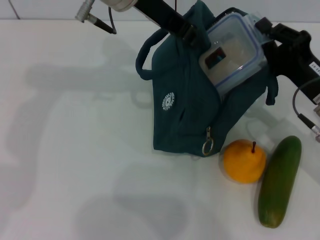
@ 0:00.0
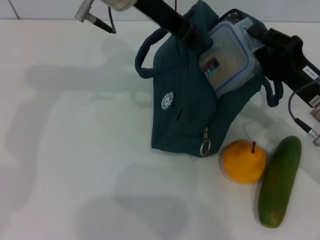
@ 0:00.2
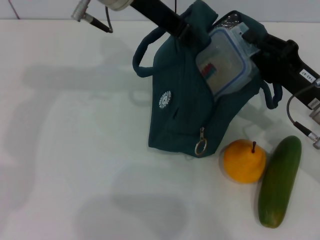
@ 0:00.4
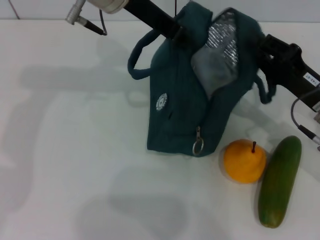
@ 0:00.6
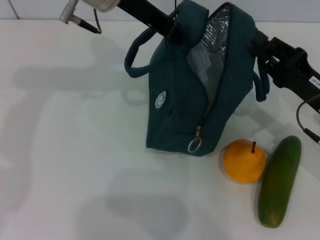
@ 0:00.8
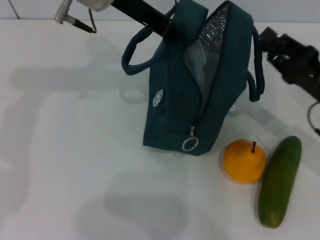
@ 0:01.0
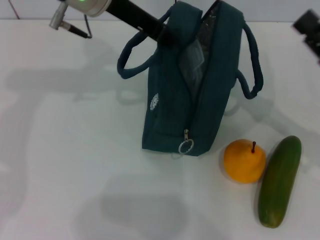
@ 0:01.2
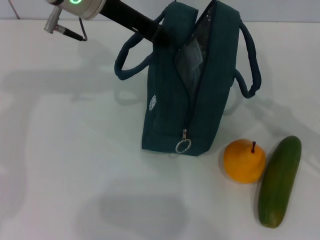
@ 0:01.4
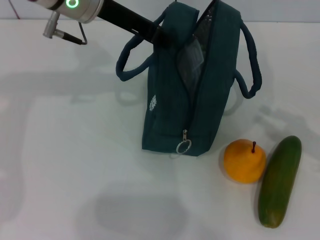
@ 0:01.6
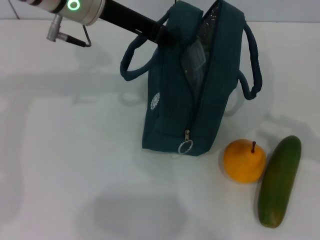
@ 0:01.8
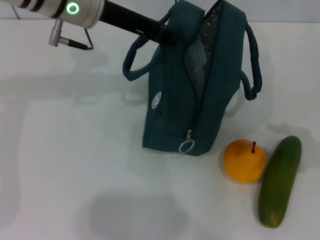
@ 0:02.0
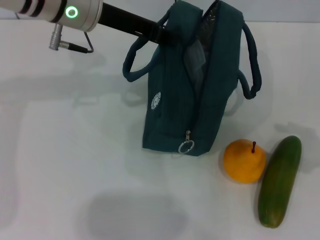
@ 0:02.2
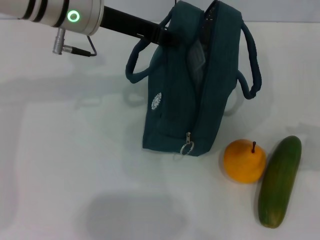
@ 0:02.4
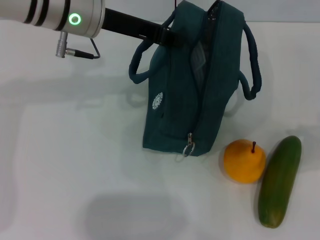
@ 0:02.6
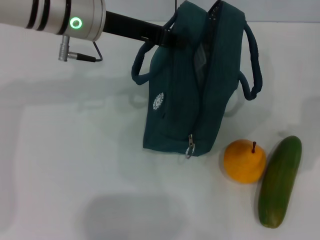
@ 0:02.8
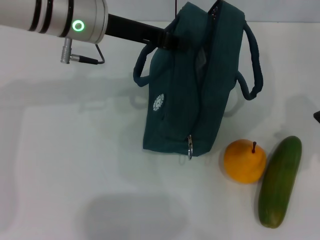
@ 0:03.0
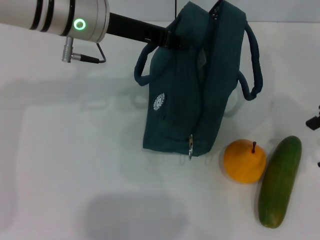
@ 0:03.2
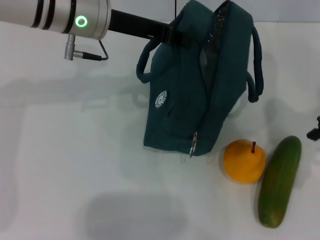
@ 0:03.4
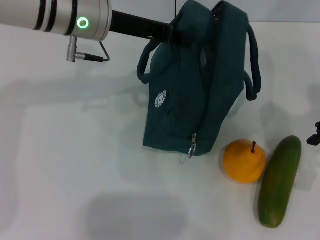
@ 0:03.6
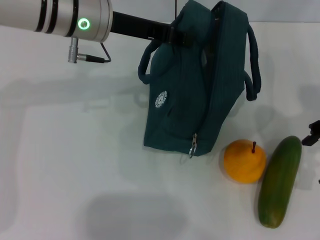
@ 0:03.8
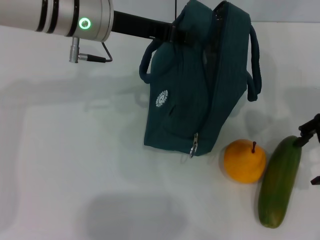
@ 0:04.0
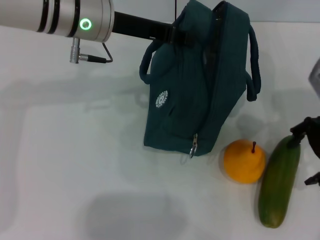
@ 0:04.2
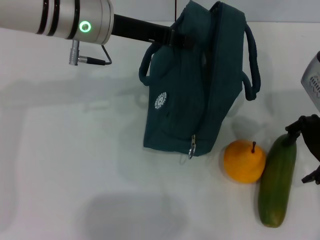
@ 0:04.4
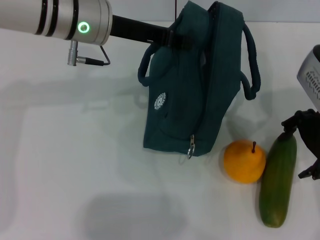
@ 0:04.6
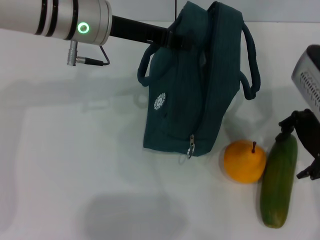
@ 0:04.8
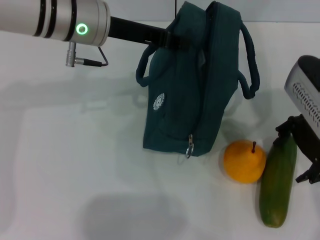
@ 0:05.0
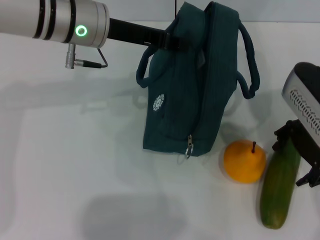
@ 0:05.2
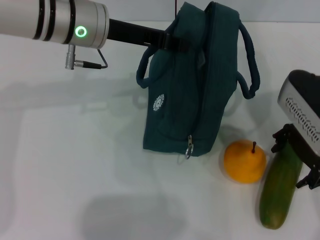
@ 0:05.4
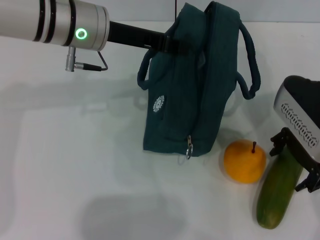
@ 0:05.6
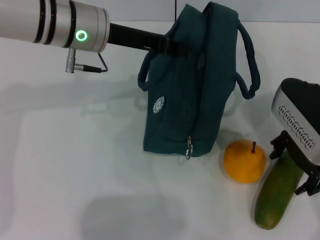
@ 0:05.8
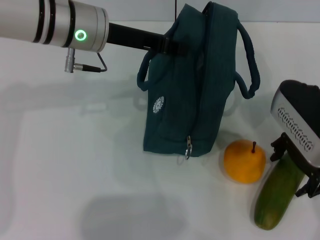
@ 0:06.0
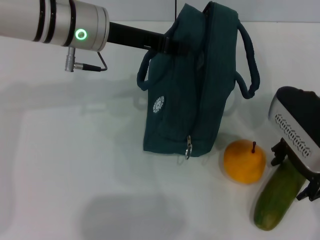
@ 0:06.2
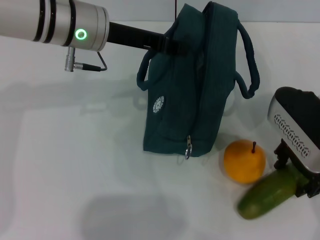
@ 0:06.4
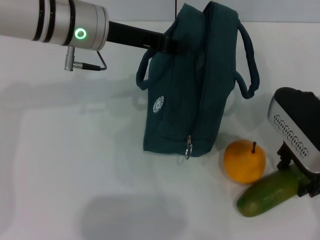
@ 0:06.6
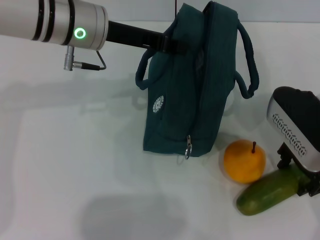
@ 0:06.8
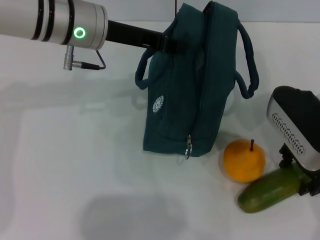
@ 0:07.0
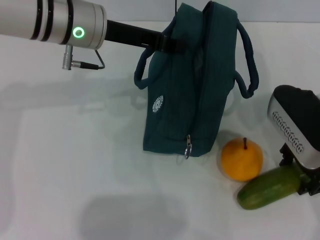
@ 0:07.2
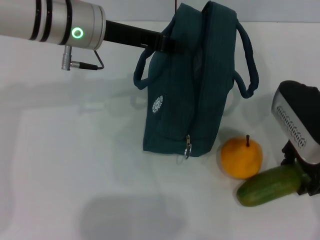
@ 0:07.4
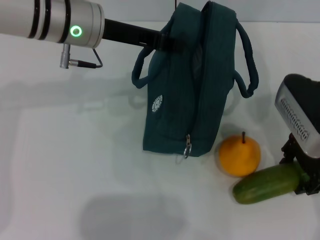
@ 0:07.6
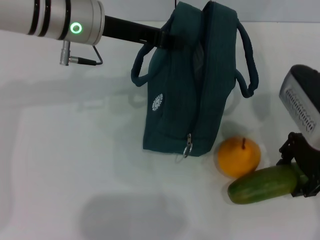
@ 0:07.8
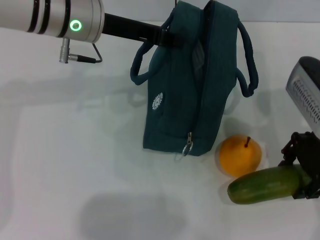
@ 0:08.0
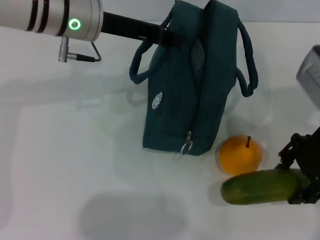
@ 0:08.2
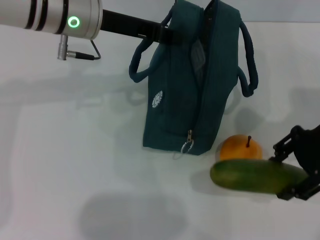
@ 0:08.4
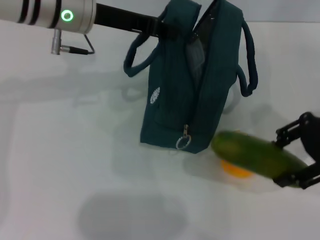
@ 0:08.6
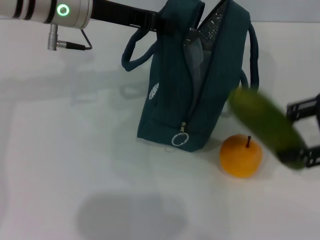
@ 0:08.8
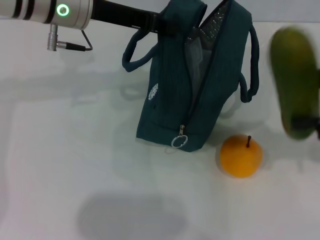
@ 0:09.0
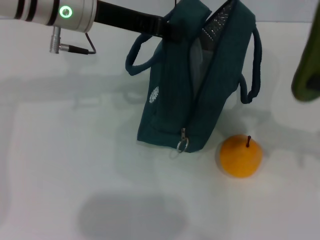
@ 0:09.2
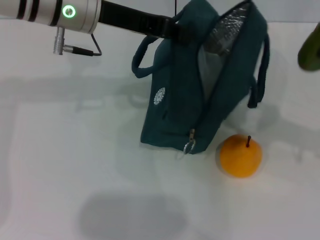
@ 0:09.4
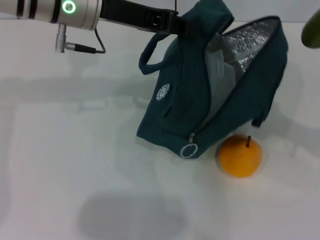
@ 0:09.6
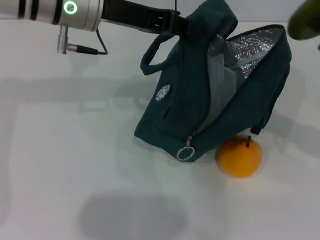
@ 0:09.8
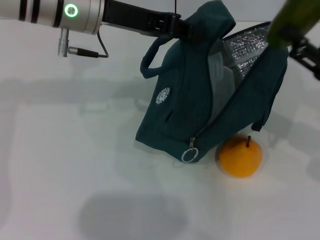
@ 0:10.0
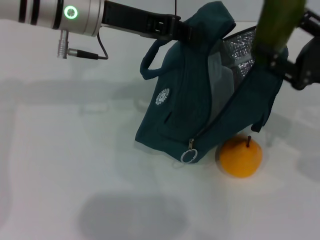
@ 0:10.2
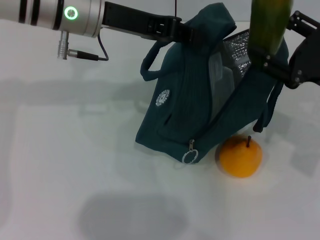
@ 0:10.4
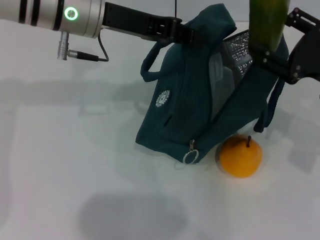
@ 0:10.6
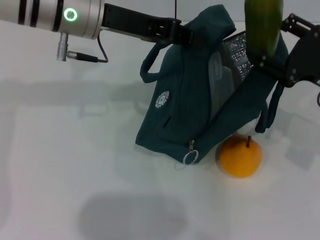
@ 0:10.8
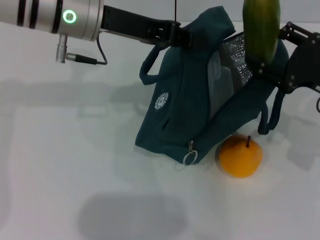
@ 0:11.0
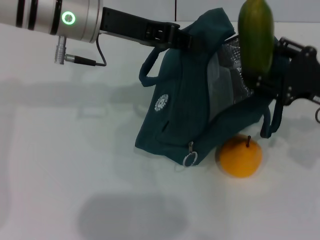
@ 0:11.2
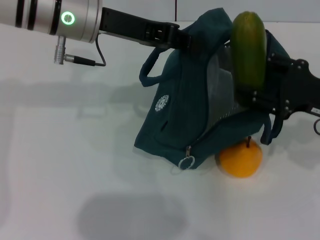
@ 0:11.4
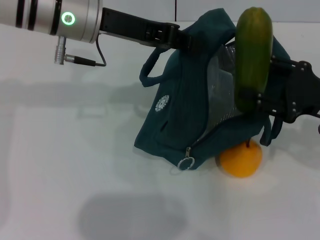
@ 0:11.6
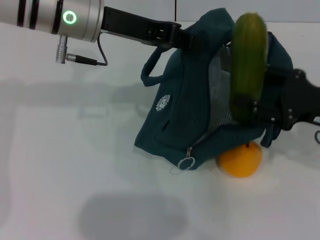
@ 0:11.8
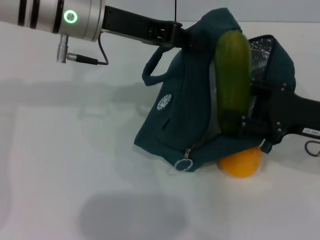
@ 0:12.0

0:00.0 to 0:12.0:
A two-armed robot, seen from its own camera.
Step, 0:01.0 to 0:07.2: Pick up the cucumber with your right hand.
0:00.0 to 0:01.6: The right gripper moves to the right and backward, approximately 15 cm; the left gripper heads to the left, covering roughly 5 cm.
0:01.6 to 0:03.0: The right gripper is displaced upward and forward by some 15 cm, and opens.
0:03.0 to 0:04.4: The right gripper is displaced to the left by roughly 10 cm.
0:04.4 to 0:07.6: The grippers stay close to where they were, moving slightly.
0:07.6 to 0:09.0: The right gripper moves to the right, roughly 10 cm.
0:09.0 to 0:10.4: The right gripper moves downward, roughly 10 cm.

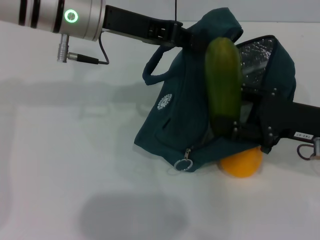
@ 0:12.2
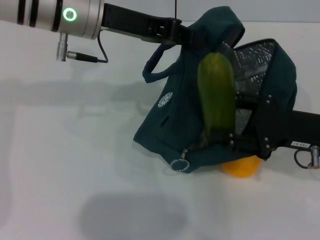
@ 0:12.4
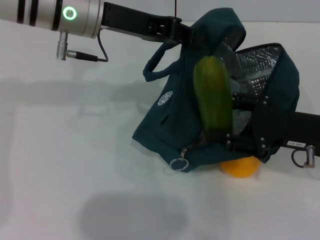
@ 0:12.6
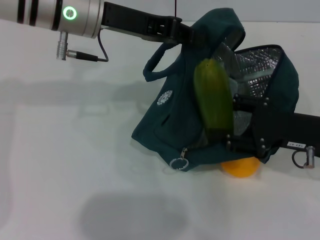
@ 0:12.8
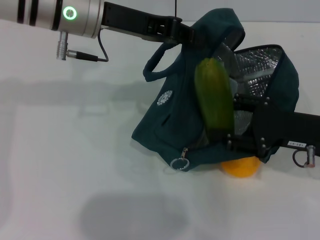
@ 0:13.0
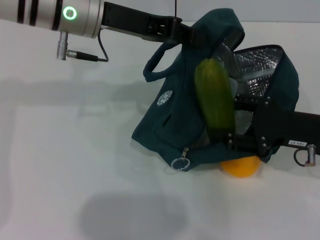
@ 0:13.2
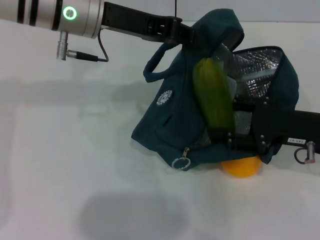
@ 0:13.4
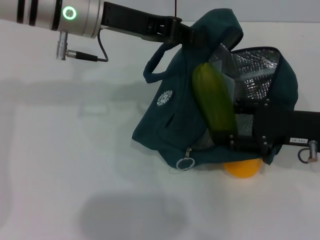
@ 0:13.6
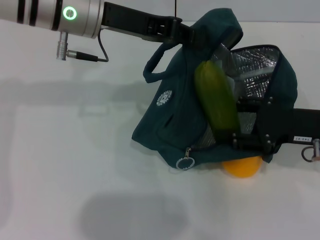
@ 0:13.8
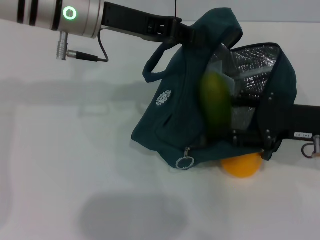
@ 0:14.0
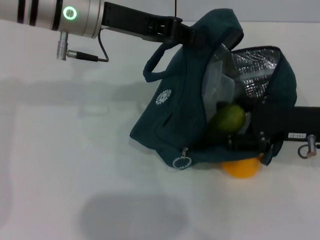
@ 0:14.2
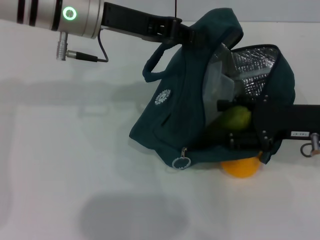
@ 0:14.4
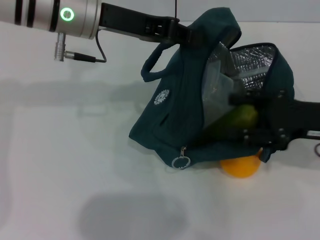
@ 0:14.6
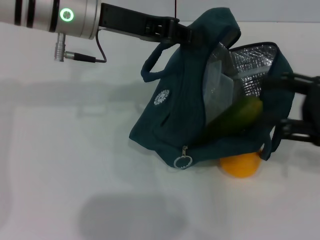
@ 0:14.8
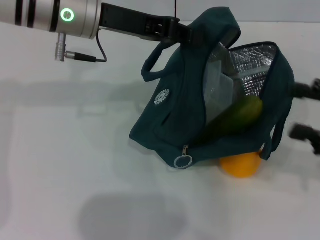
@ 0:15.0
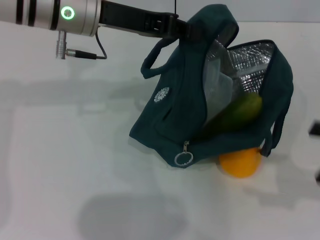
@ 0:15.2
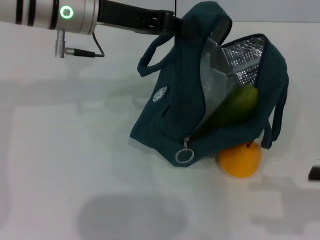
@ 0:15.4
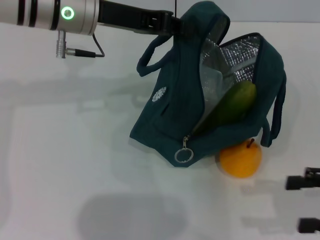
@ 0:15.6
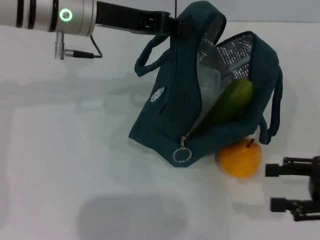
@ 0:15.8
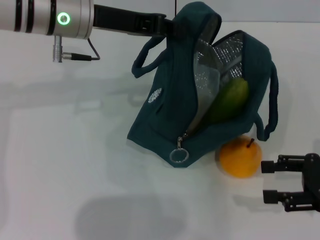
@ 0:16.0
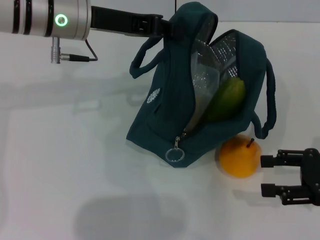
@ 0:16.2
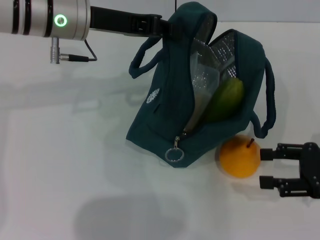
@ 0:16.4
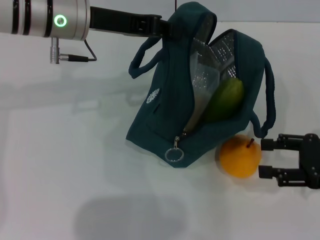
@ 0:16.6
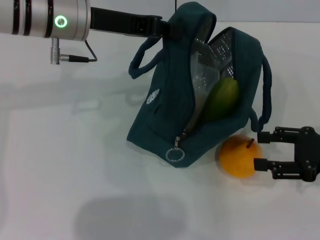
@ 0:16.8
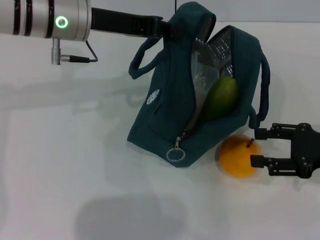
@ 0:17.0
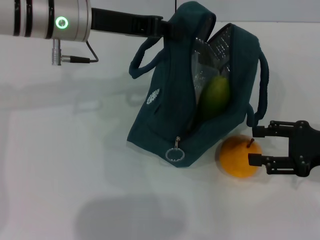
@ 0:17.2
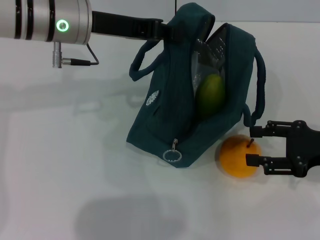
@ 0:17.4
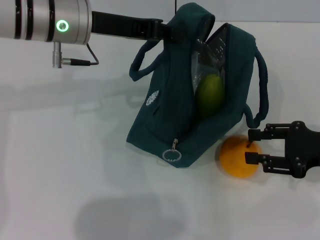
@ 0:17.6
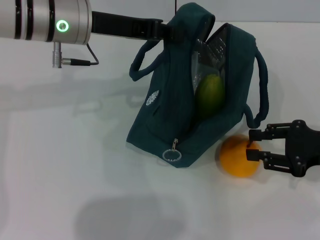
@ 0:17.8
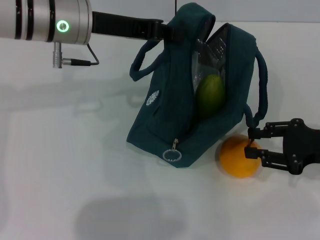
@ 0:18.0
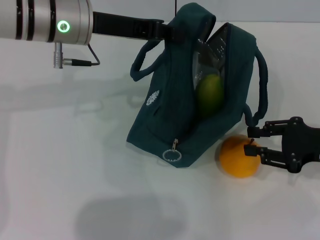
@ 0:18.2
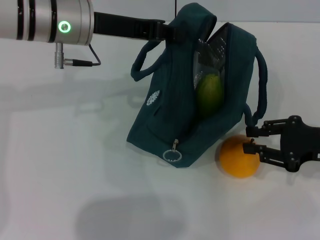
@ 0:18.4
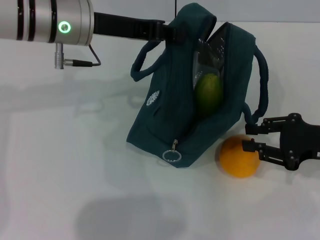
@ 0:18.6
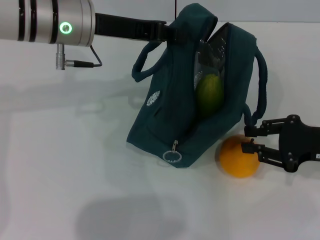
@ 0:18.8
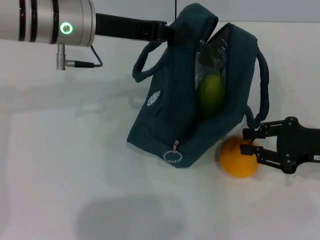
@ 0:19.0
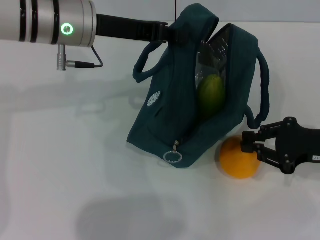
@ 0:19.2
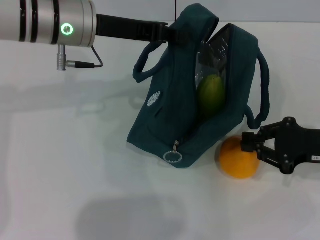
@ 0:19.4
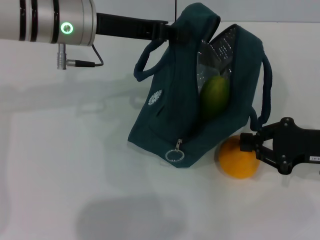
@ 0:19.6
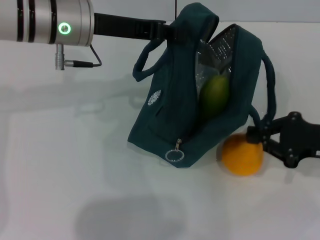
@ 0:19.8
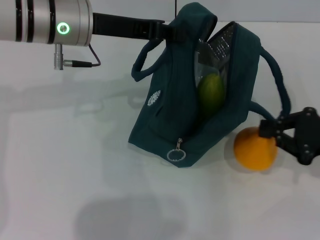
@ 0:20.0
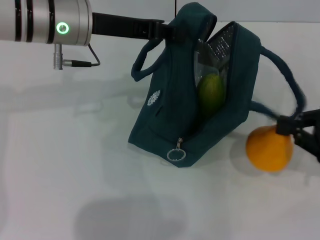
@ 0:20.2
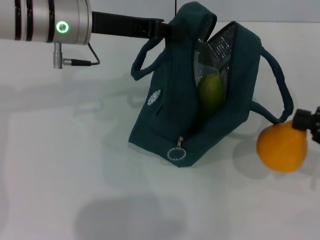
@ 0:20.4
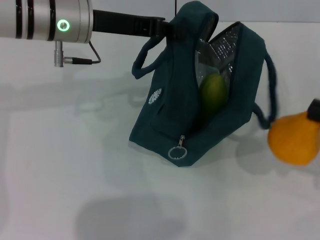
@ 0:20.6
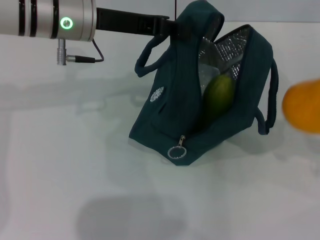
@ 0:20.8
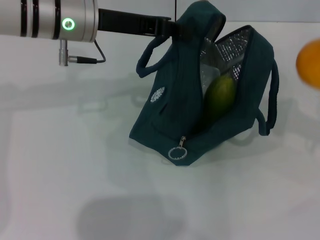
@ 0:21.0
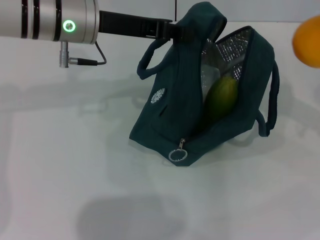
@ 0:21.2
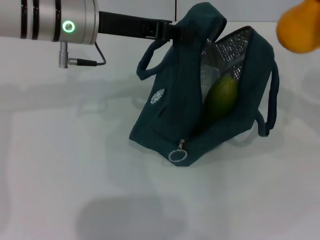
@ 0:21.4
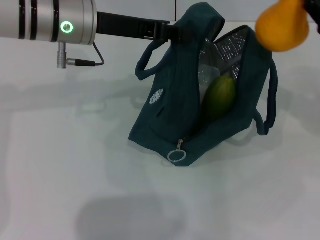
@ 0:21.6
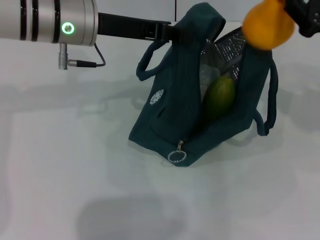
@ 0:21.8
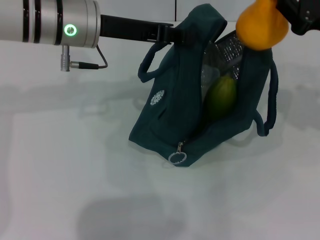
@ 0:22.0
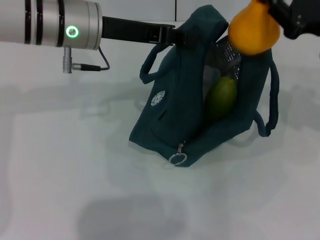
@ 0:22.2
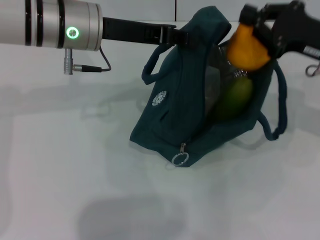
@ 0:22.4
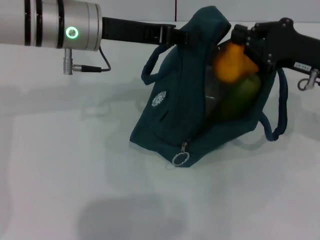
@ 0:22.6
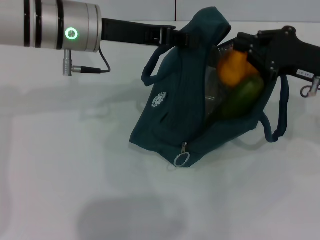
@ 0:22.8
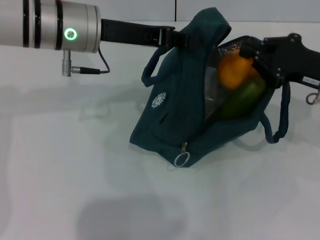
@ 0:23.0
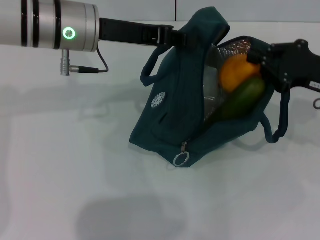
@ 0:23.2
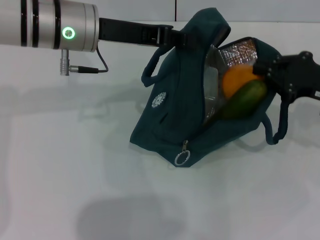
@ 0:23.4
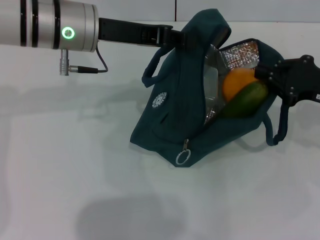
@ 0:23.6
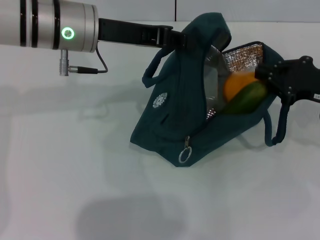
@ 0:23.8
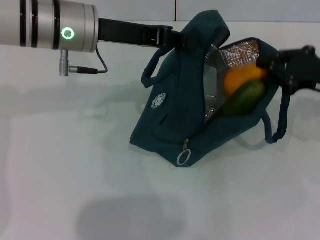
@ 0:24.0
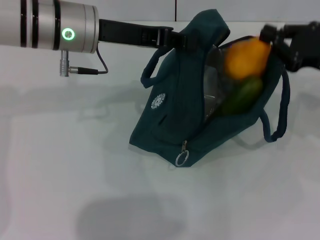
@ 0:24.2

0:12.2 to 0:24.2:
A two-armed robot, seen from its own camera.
Step, 0:12.2 to 0:14.6: Put the cucumber into the lunch bag with your right hand.
Step, 0:15.0 to 0:19.4: Grab the pear with your right hand.
0:12.2 to 0:13.8: The grippers move only a little.
0:13.8 to 0:15.2: The right gripper shifts roughly 10 cm to the right and backward.
0:15.2 to 0:16.6: The right gripper moves approximately 5 cm.
0:16.6 to 0:18.2: The grippers make only small movements.
0:18.2 to 0:19.8: The right gripper closes.
0:19.8 to 0:21.2: The right gripper travels upward and to the right by roughly 10 cm.
0:21.2 to 0:22.6: The right gripper moves to the left and forward, some 10 cm.
0:22.6 to 0:24.2: The grippers move only a little.
